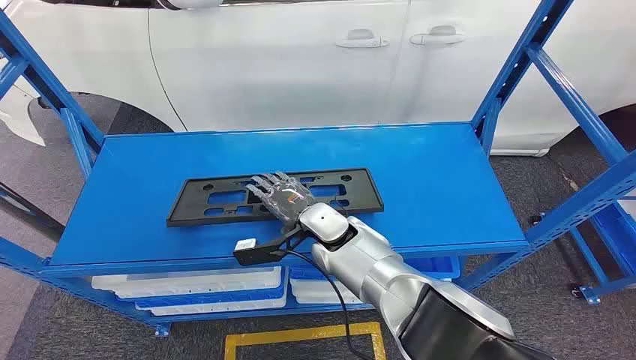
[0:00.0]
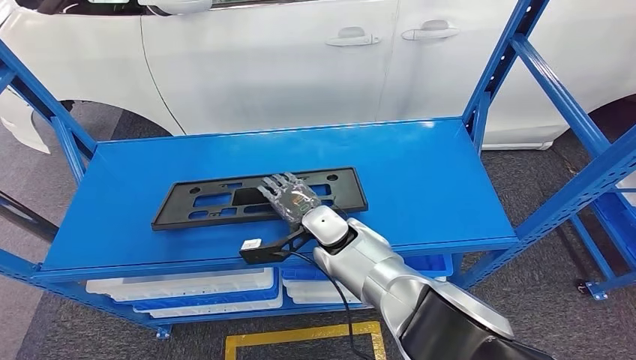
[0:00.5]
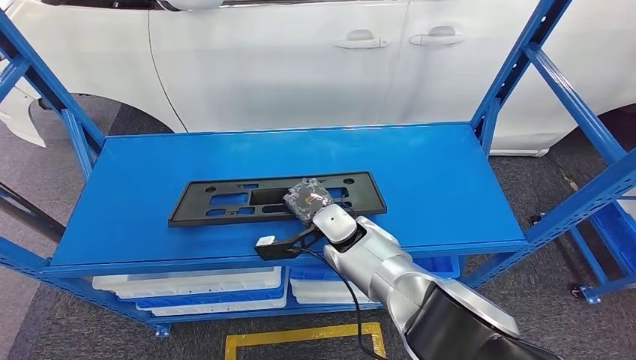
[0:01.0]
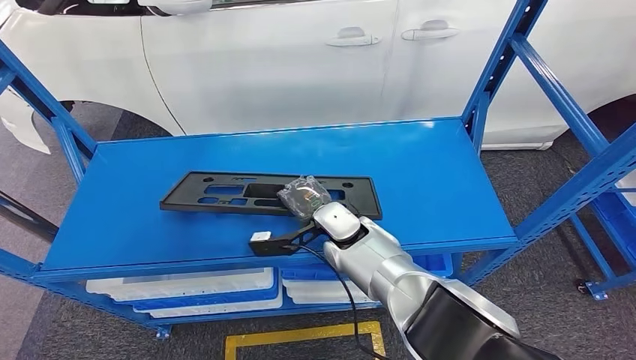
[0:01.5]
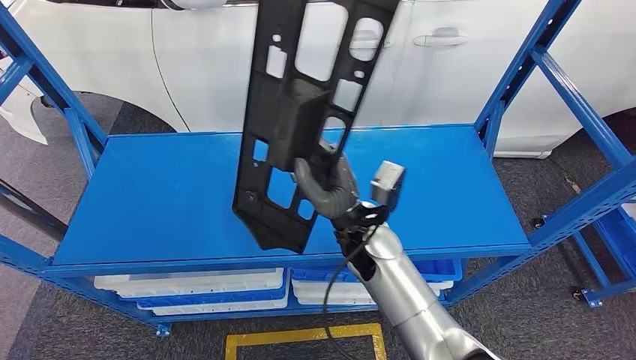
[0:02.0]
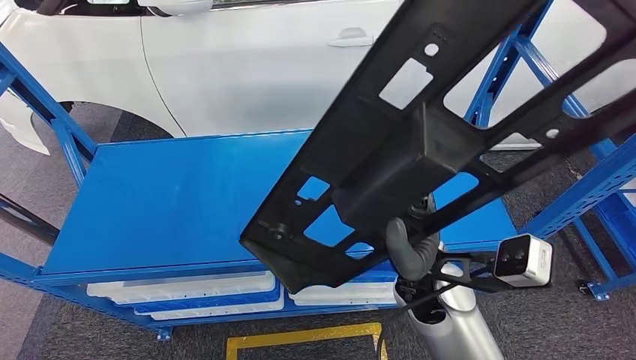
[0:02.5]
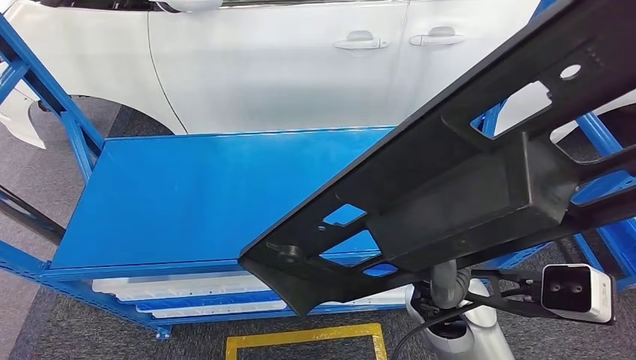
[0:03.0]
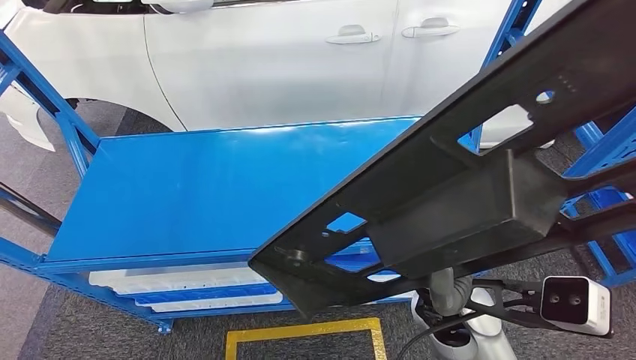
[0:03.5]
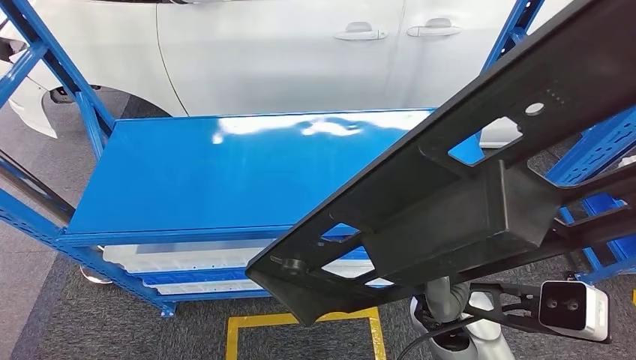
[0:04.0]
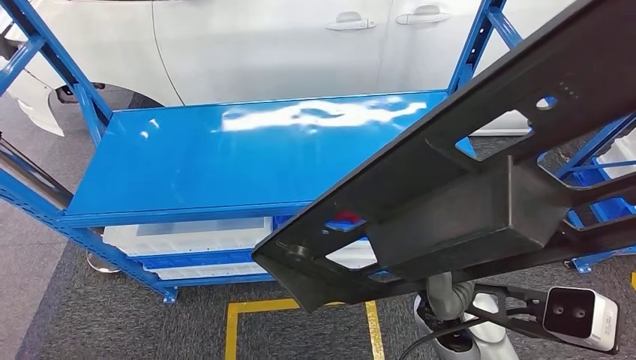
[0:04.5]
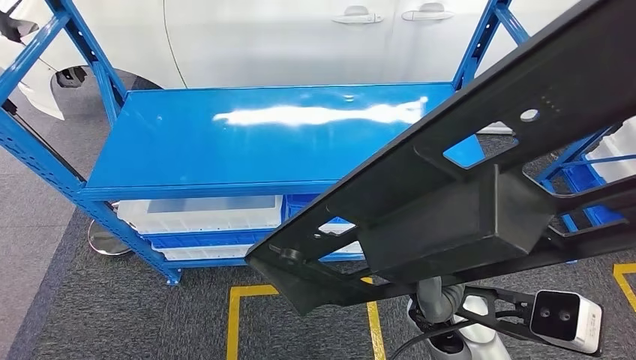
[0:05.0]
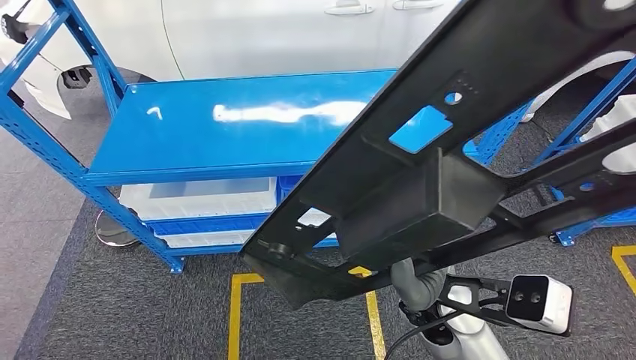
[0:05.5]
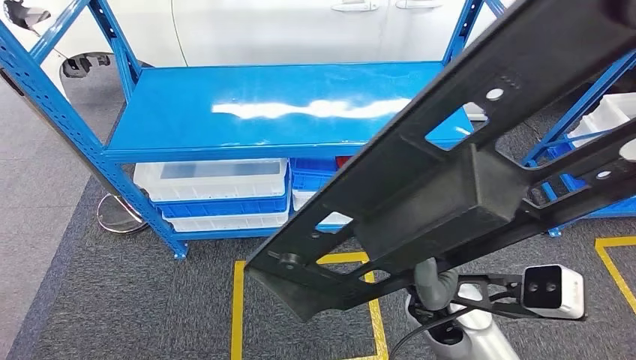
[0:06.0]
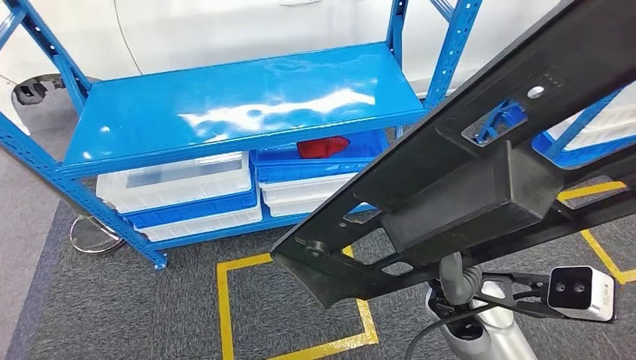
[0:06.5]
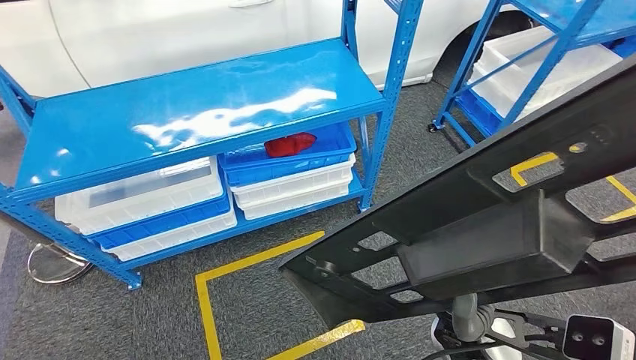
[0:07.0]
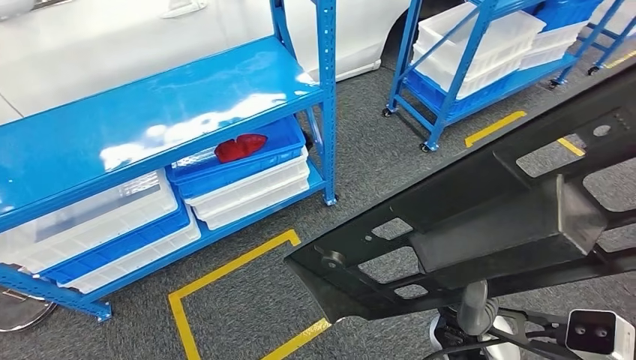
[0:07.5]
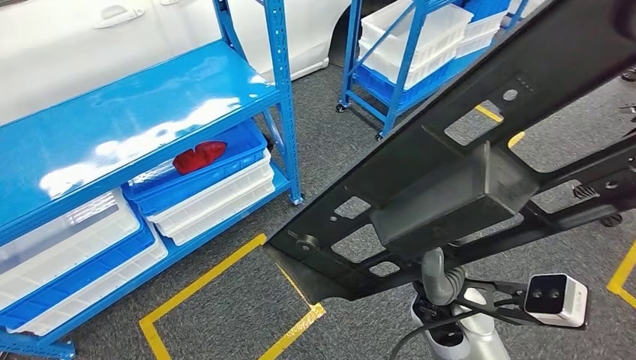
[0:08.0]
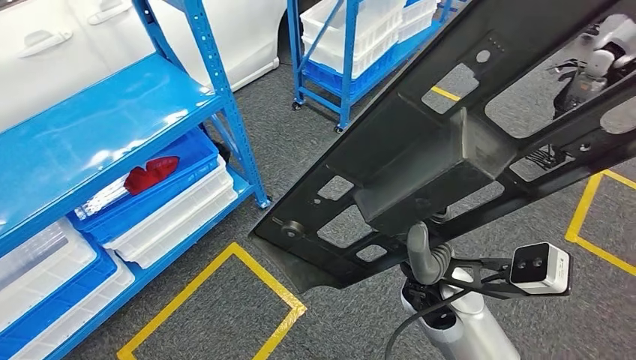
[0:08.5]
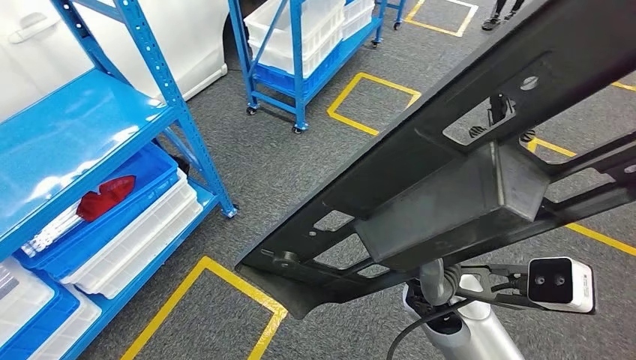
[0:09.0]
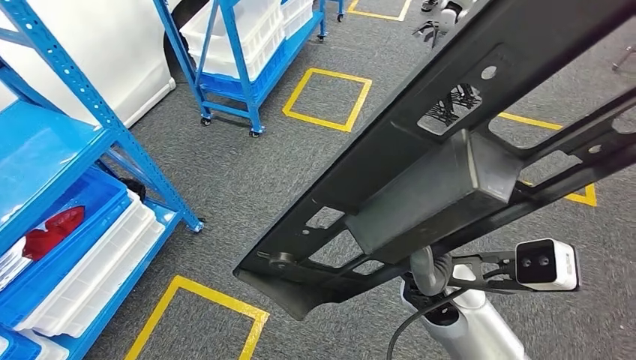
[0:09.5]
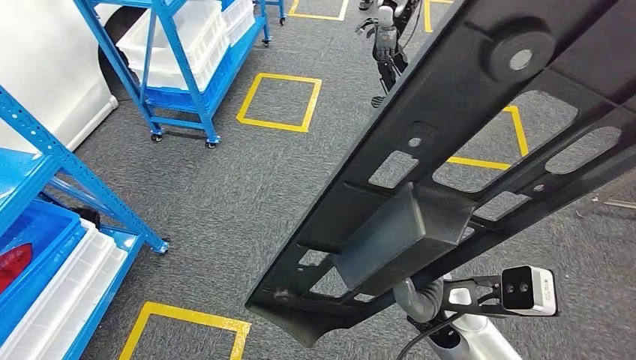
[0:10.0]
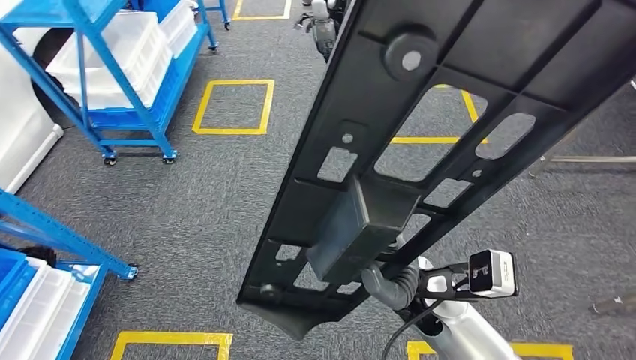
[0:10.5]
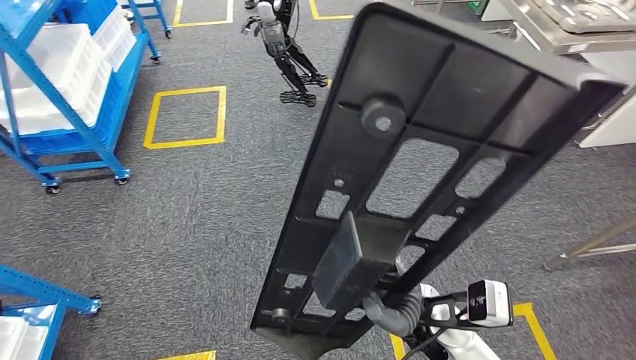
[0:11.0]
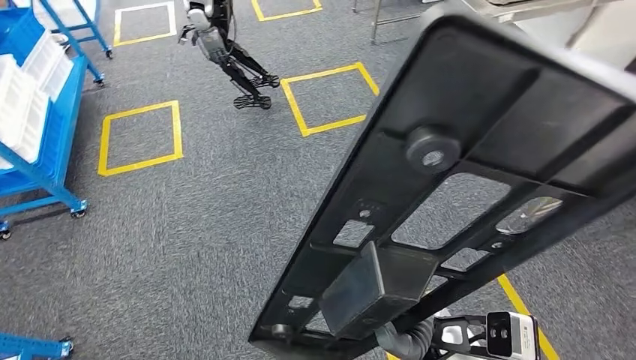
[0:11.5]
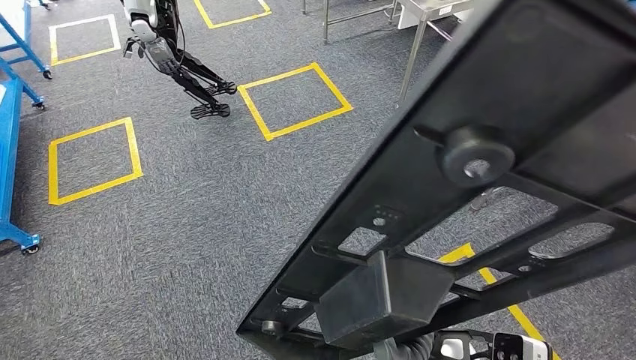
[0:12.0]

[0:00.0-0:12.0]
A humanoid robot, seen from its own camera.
Step, 0:00.0 to 0:02.5: Pick up the small component from the shelf.

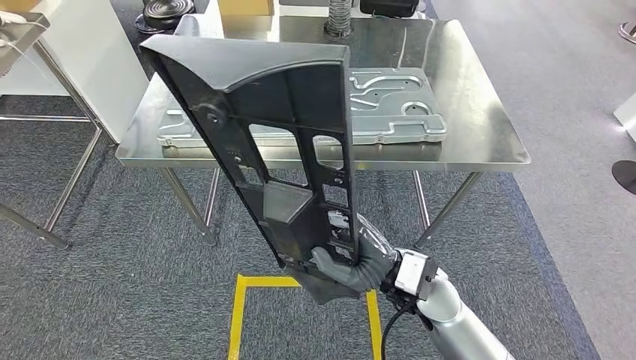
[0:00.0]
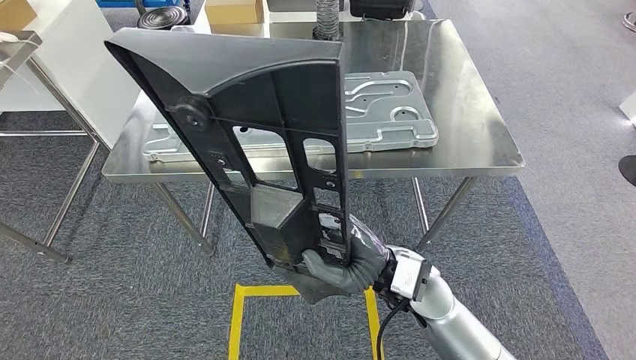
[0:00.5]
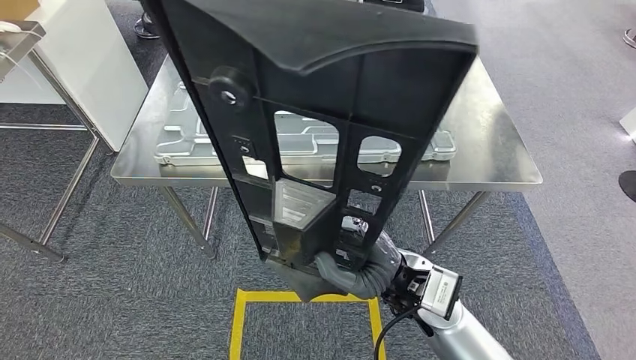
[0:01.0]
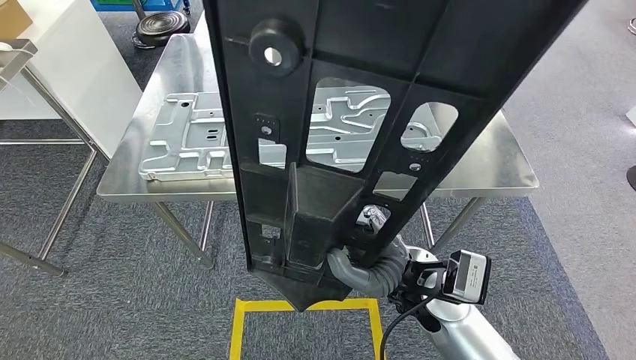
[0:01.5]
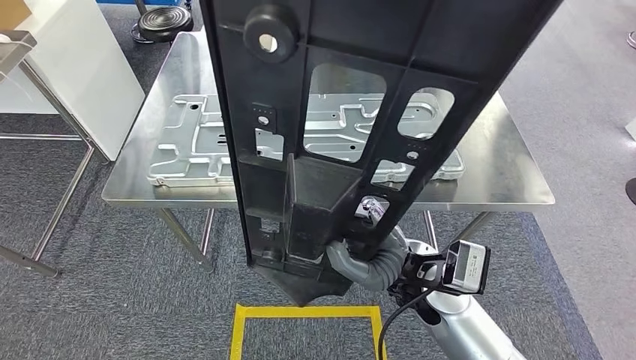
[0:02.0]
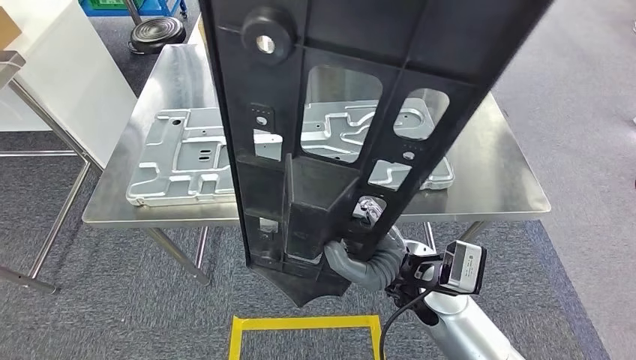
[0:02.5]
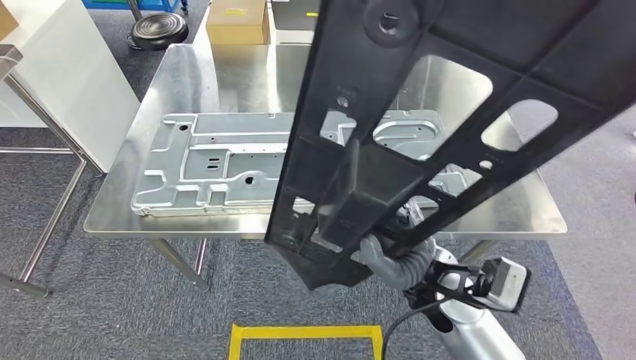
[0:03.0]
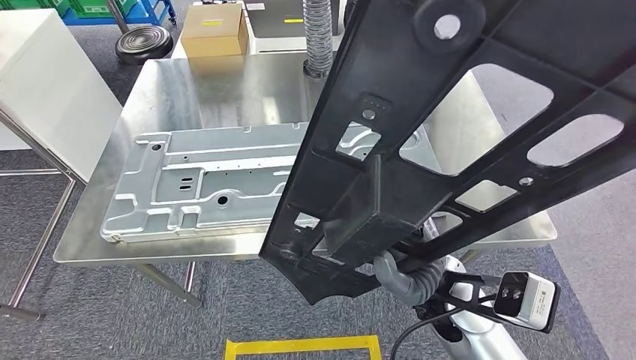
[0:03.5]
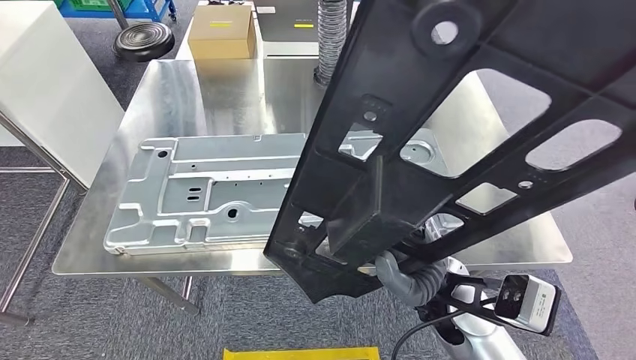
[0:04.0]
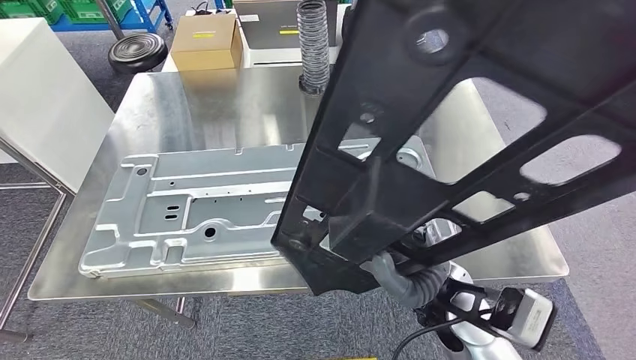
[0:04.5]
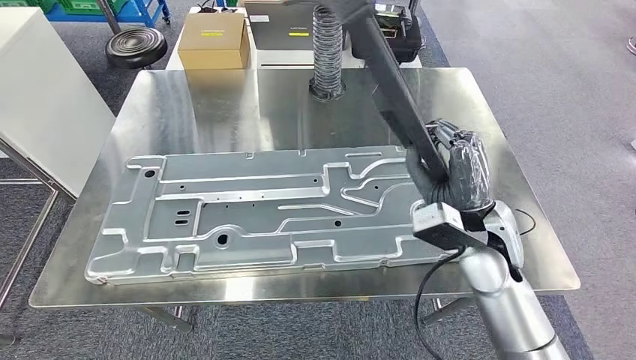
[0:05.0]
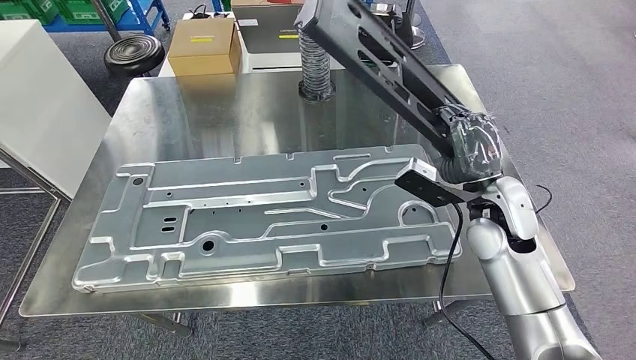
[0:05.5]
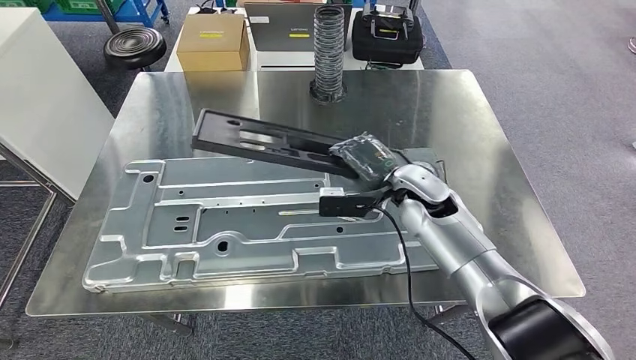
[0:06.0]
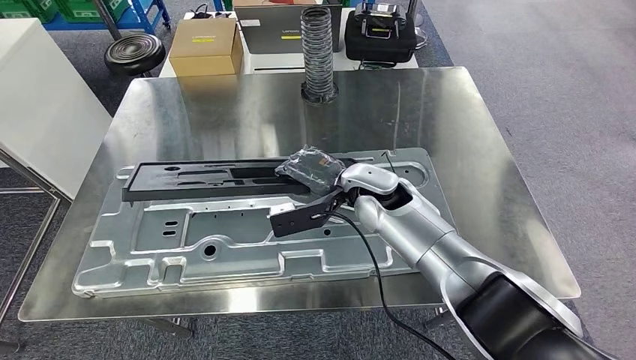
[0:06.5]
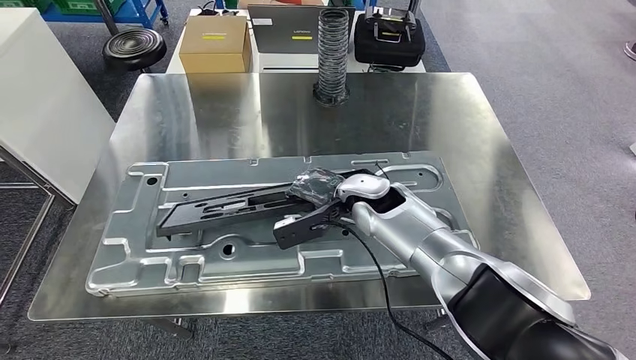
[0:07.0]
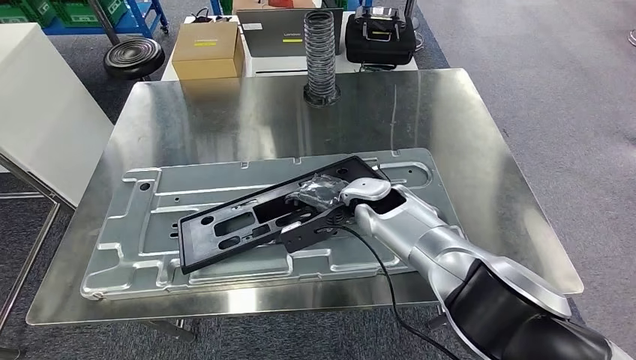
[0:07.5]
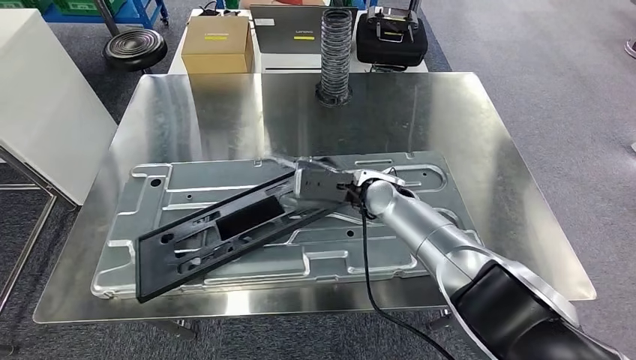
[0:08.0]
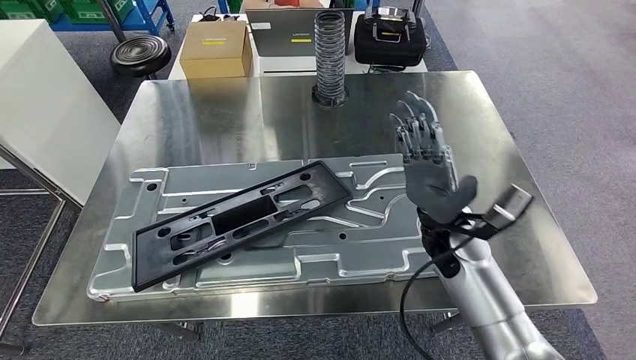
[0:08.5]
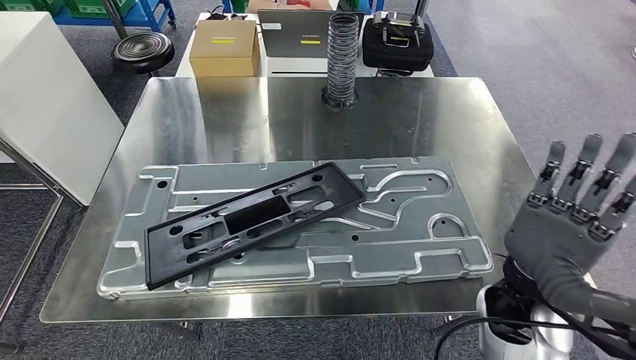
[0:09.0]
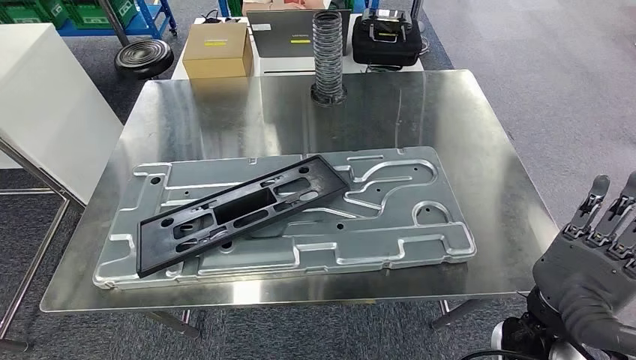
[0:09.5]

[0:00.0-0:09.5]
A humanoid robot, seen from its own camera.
Step, 0:00.0 to 0:03.0: Move the small component to the workbench.
Step, 0:03.5 to 0:07.0: Insert the small component into the corresponding slot on the workbench.
